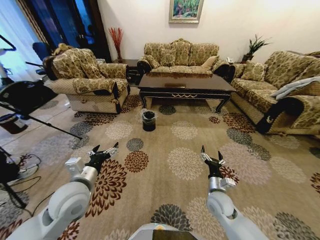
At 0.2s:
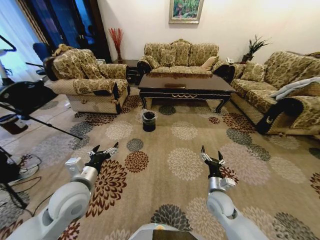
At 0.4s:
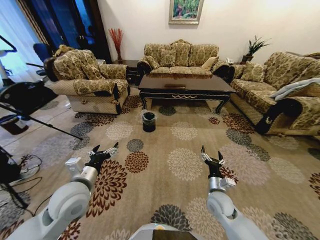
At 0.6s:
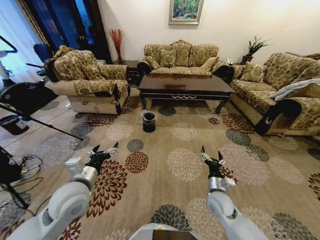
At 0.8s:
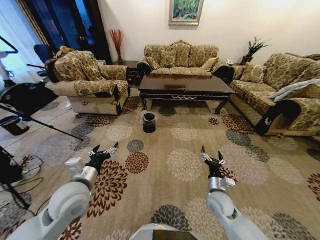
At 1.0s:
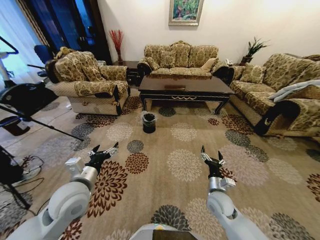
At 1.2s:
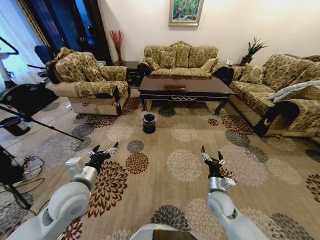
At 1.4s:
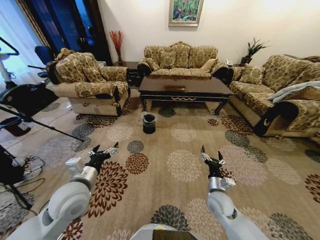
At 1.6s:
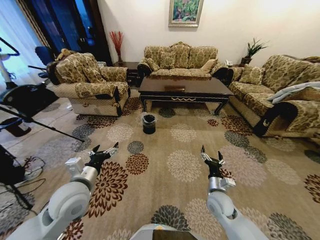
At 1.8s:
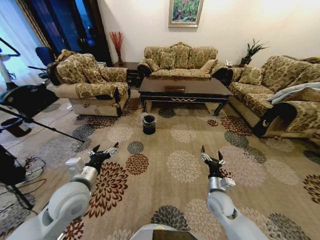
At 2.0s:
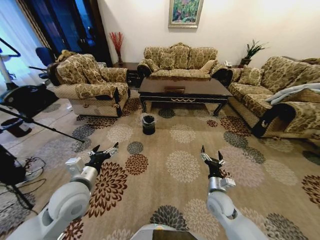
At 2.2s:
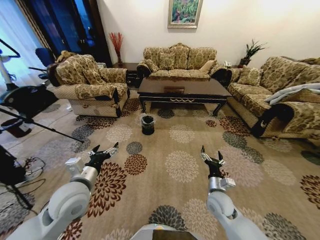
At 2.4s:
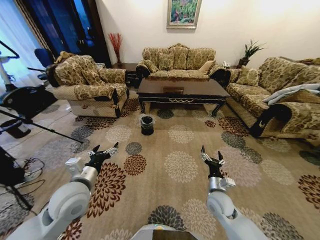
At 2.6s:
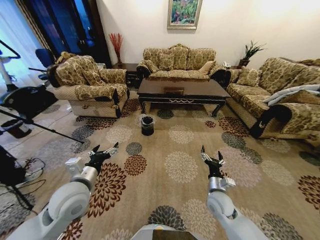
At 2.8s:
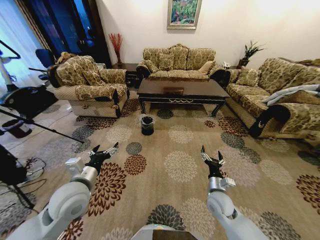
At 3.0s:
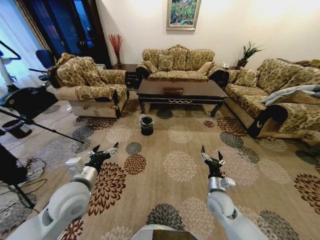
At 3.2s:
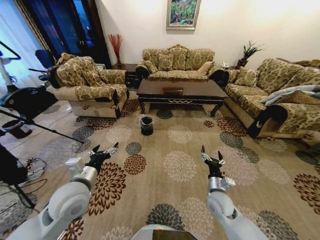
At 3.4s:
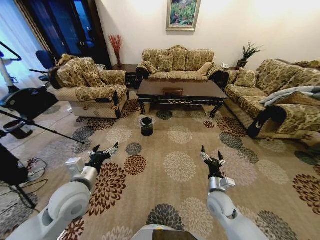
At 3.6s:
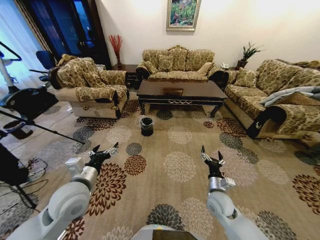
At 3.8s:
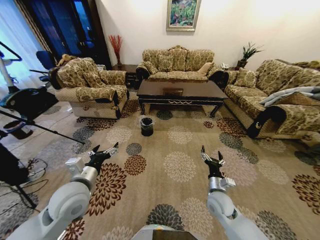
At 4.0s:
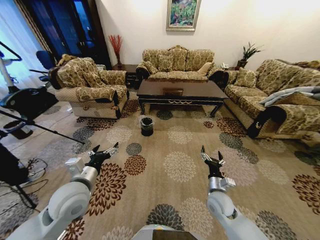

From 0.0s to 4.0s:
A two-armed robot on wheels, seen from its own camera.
Task of the whole recording: Move to the front of the table and pick up the trash from the floor, then place it into the trash bin.
From 2.6s to 4.0s: Both grippers stay about where they are.
